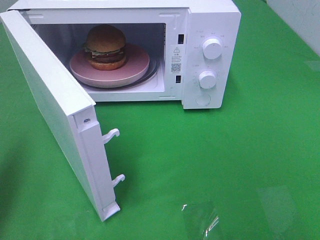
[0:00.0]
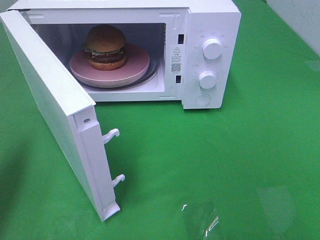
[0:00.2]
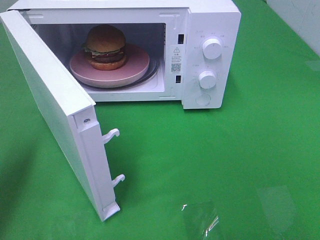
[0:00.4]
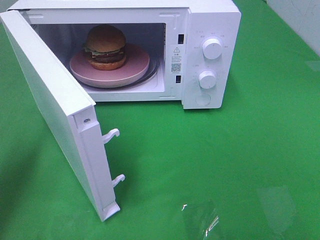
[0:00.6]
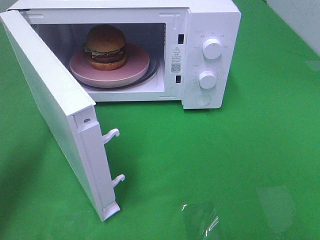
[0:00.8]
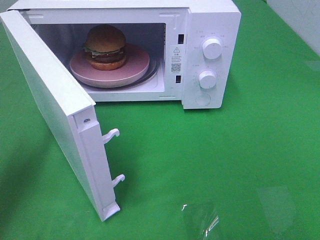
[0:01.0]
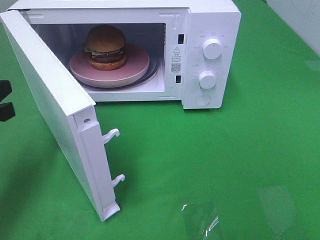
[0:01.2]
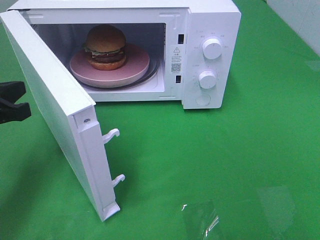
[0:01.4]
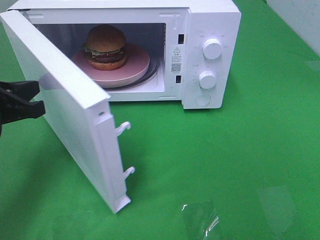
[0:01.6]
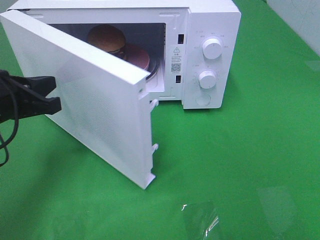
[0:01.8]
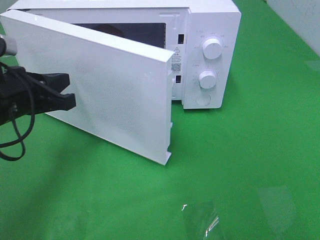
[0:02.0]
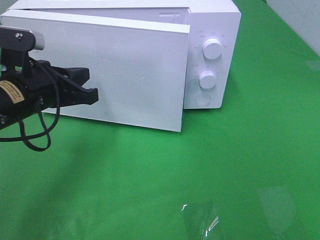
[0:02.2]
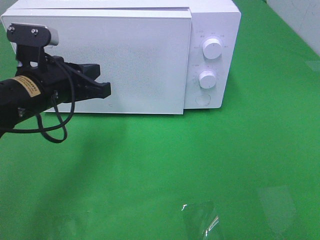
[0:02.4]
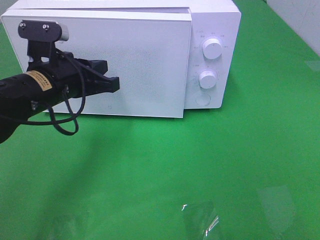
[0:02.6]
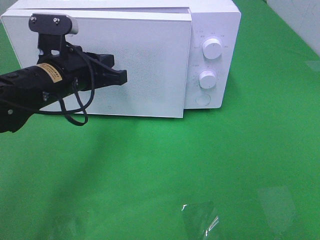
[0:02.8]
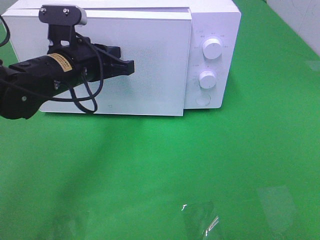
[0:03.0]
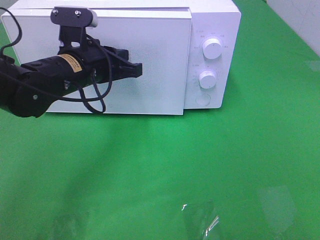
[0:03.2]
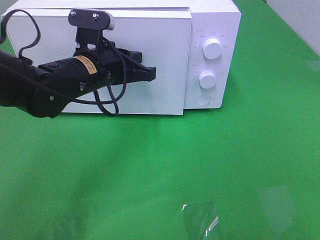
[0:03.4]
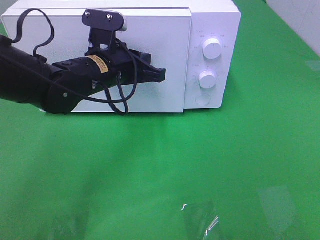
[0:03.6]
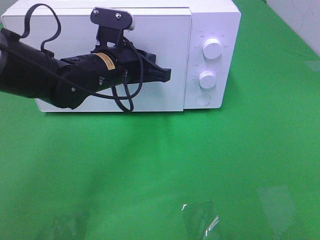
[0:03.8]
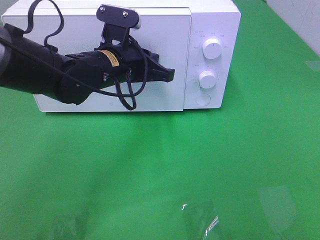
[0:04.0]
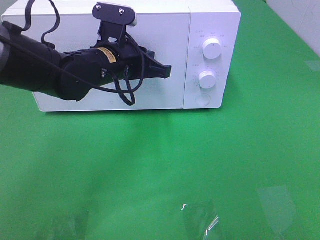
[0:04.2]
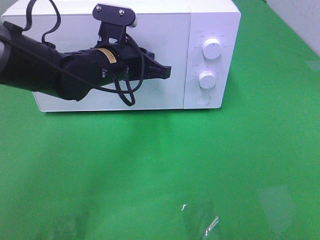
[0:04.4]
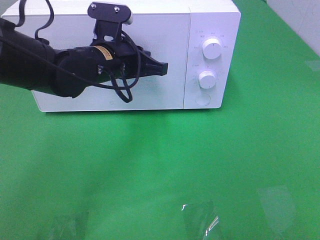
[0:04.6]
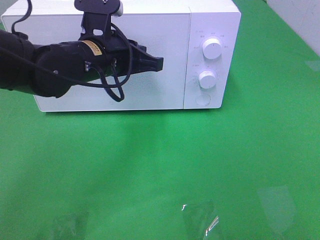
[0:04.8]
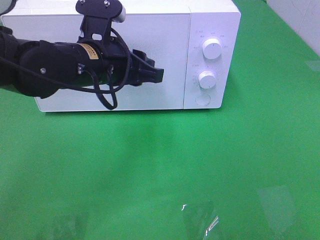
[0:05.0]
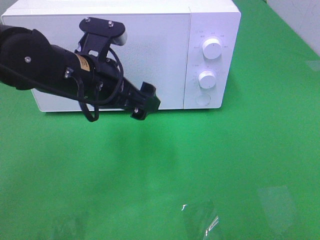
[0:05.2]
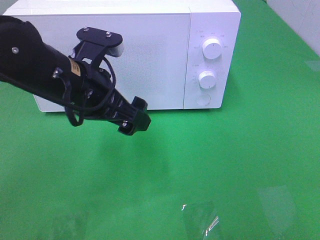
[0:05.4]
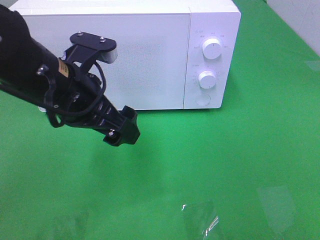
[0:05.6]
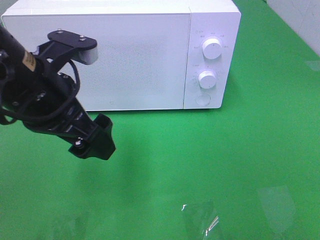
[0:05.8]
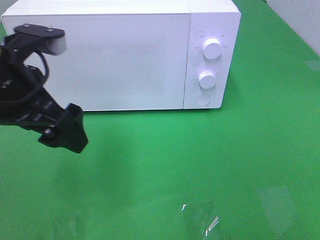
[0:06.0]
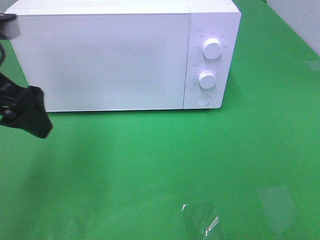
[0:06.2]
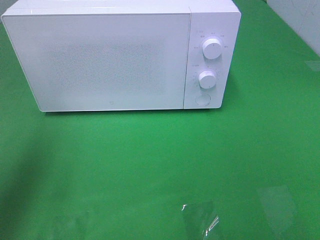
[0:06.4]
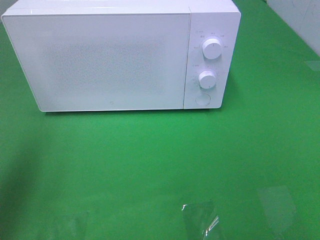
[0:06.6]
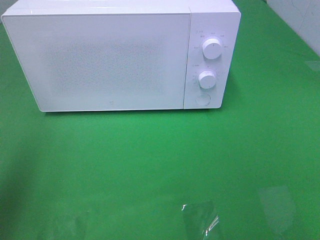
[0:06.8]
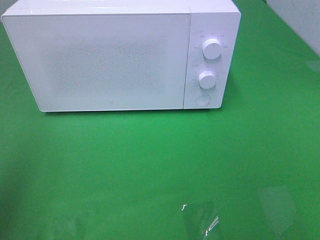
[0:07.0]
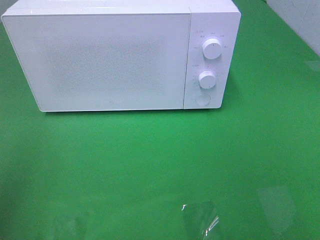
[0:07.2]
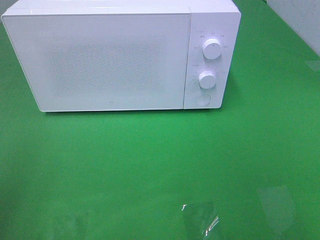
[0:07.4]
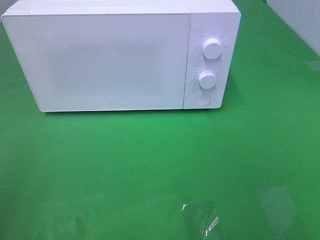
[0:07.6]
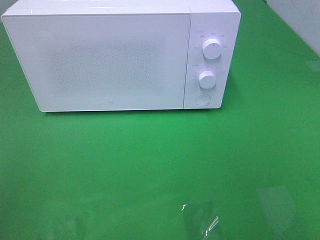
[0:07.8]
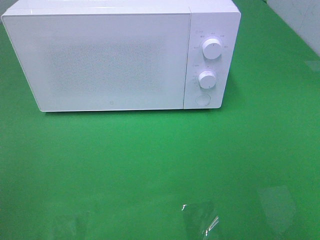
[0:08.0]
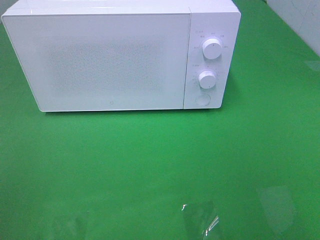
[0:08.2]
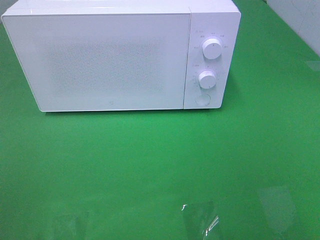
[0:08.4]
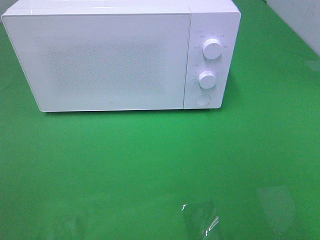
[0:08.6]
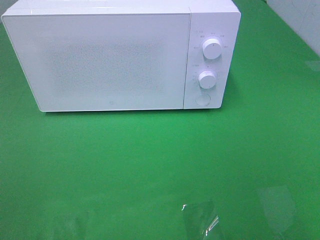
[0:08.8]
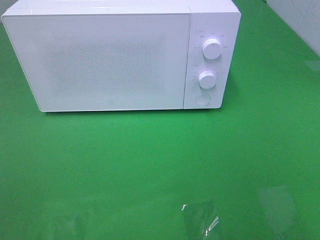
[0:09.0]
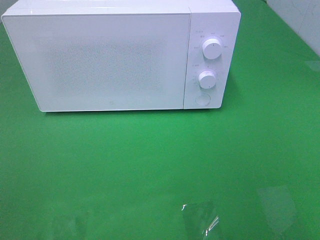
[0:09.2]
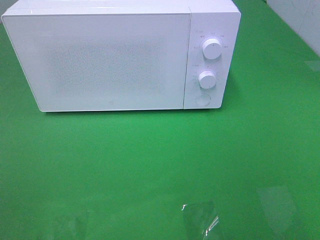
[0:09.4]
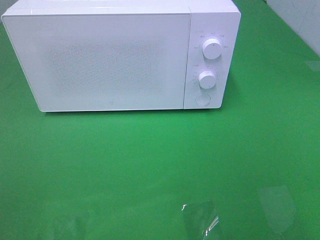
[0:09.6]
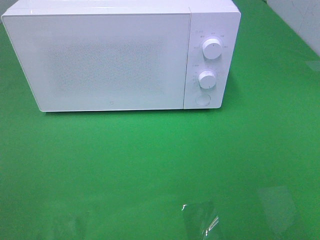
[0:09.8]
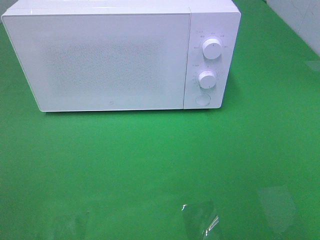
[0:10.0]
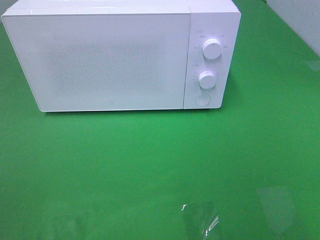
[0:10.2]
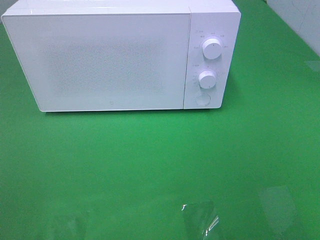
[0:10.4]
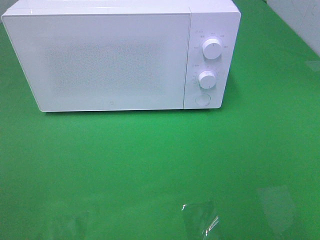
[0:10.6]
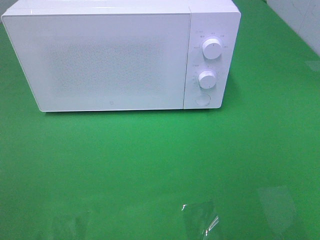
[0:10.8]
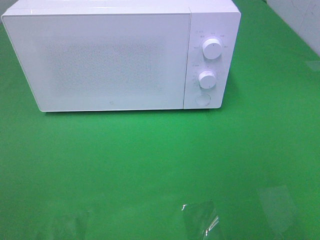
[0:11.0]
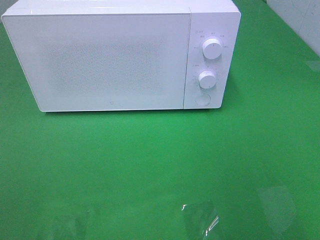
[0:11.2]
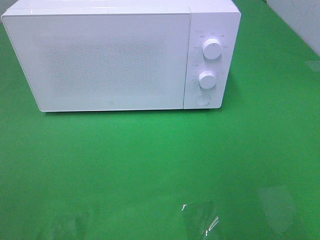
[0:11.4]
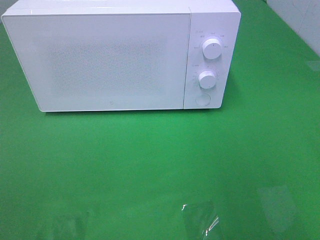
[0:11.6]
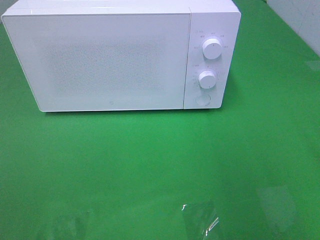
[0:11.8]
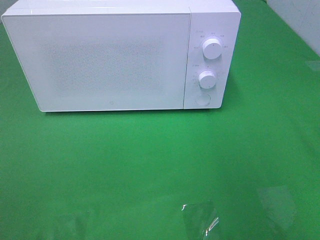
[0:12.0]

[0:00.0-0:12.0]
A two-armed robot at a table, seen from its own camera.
Task of the whole recording: Heat the burger.
Step, 0:00.0 to 0:04.8: Left hand: close the microwave door.
0:00.0 to 0:01.6: The left gripper is displaced downward, forward and to the right by approximately 15 cm.
0:01.6 to 0:03.0: The left gripper moves to the right and forward, roughly 15 cm.
0:03.0 to 0:04.4: The left gripper is displaced to the right by some 5 cm.
0:04.4 to 0:06.0: The left gripper goes roughly 20 cm backward, to the left and upward, and opens its fingers.
0:06.0 to 0:07.6: The left gripper moves backward and to the left, approximately 20 cm.
0:09.0 to 0:10.4: Both grippers stay put.

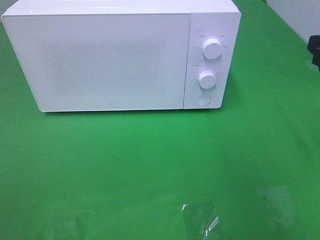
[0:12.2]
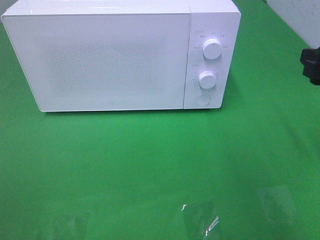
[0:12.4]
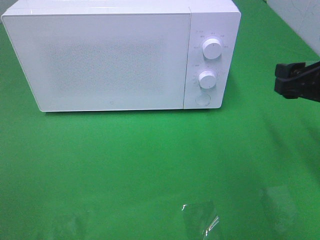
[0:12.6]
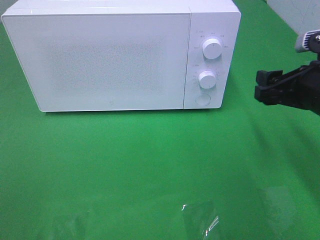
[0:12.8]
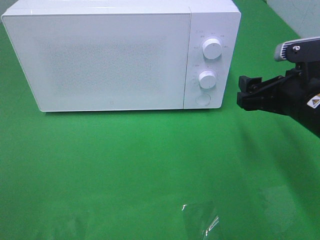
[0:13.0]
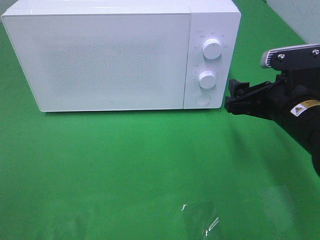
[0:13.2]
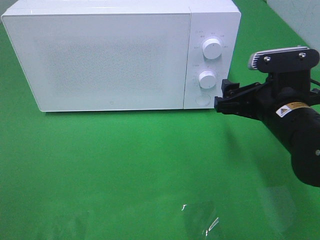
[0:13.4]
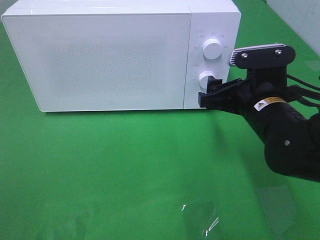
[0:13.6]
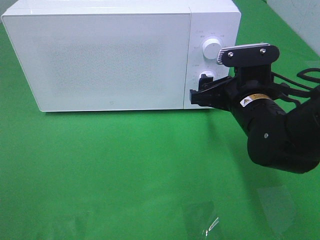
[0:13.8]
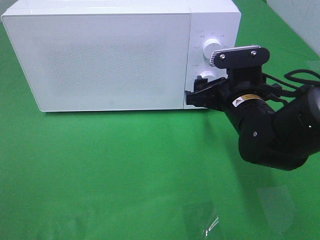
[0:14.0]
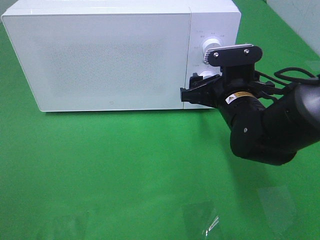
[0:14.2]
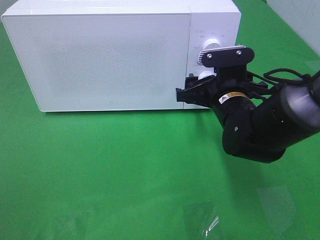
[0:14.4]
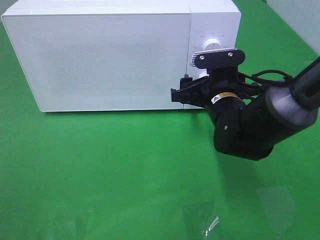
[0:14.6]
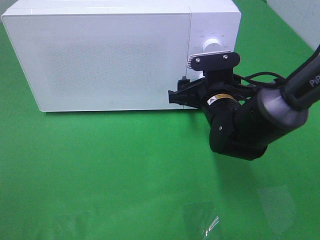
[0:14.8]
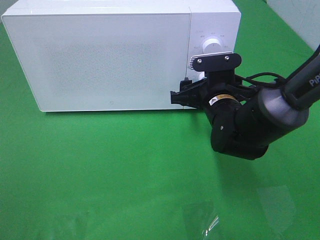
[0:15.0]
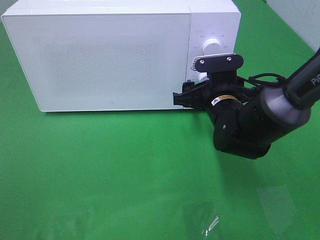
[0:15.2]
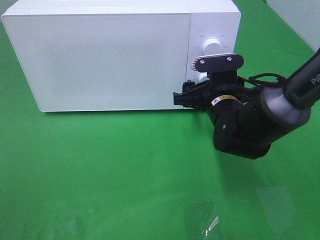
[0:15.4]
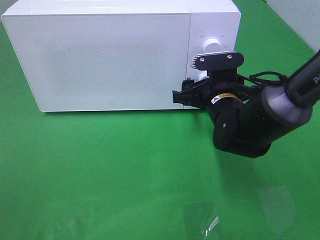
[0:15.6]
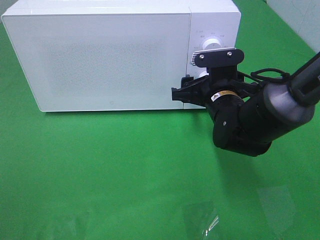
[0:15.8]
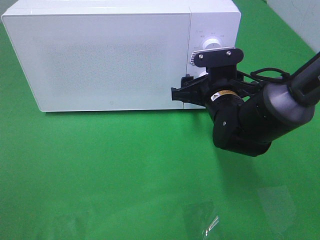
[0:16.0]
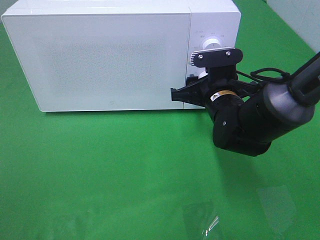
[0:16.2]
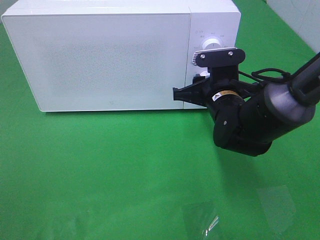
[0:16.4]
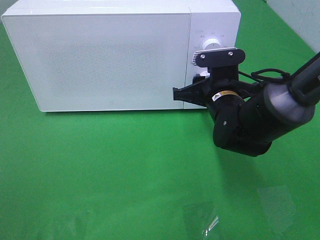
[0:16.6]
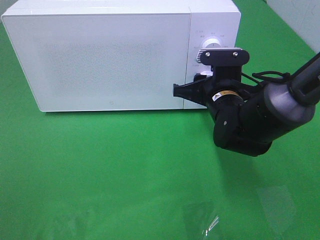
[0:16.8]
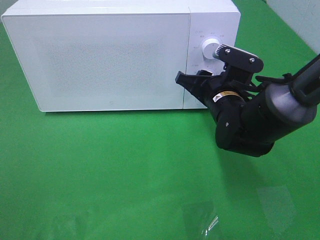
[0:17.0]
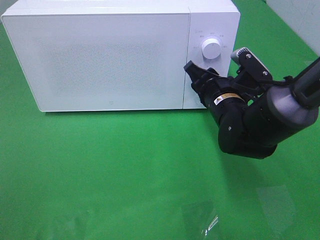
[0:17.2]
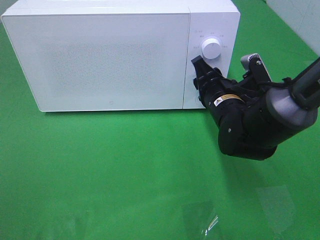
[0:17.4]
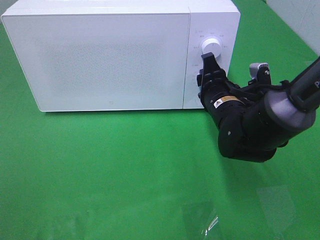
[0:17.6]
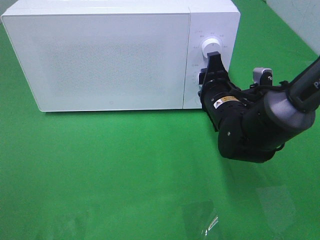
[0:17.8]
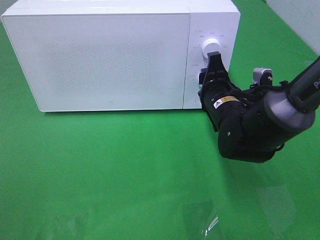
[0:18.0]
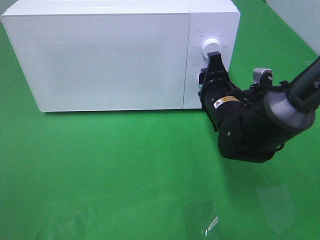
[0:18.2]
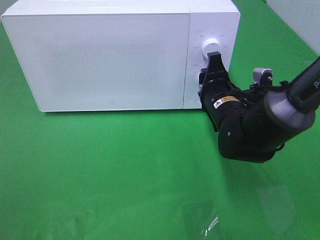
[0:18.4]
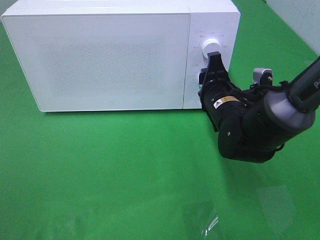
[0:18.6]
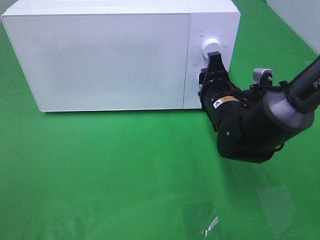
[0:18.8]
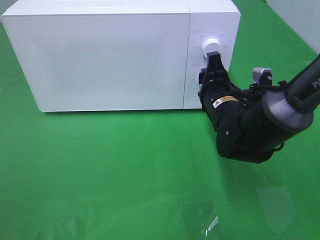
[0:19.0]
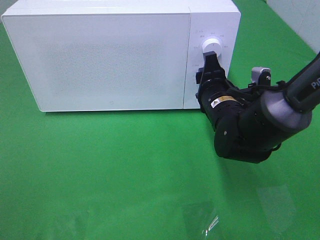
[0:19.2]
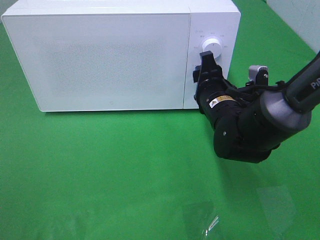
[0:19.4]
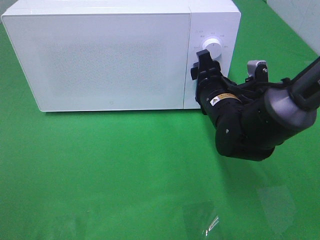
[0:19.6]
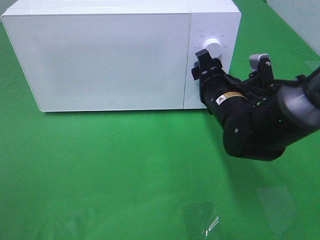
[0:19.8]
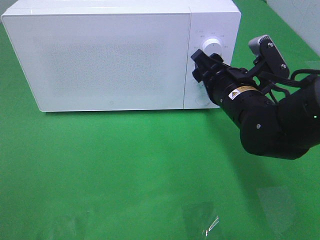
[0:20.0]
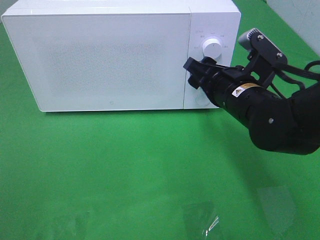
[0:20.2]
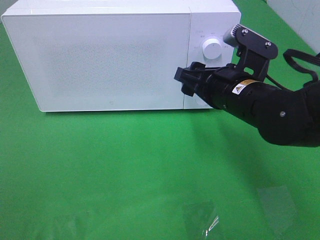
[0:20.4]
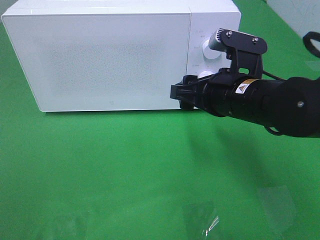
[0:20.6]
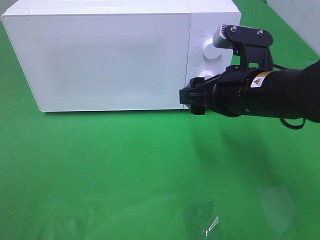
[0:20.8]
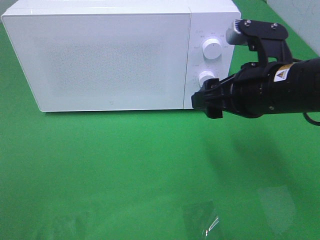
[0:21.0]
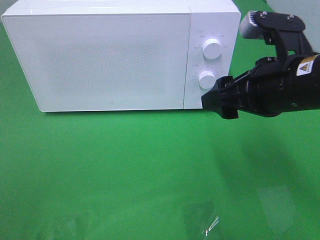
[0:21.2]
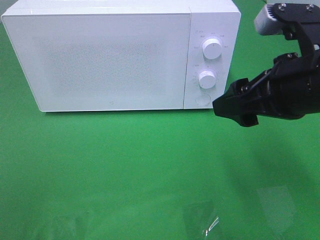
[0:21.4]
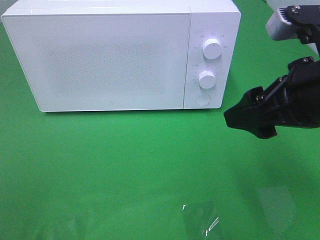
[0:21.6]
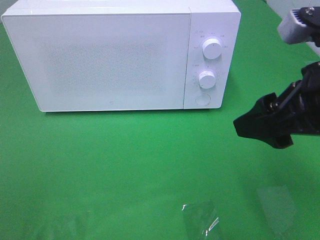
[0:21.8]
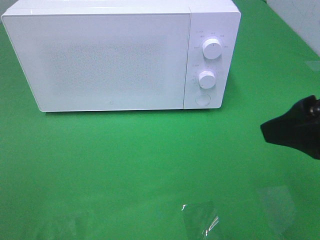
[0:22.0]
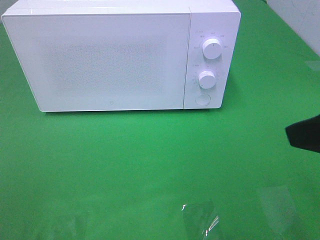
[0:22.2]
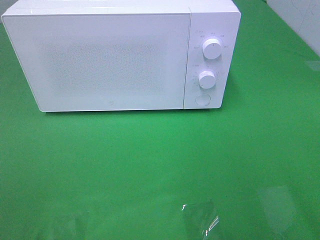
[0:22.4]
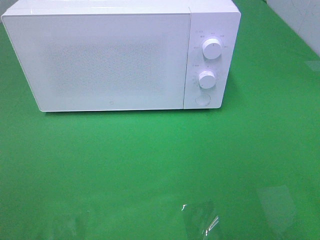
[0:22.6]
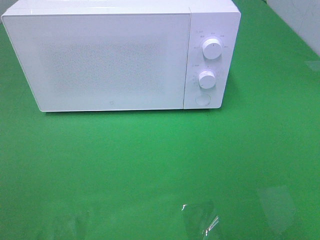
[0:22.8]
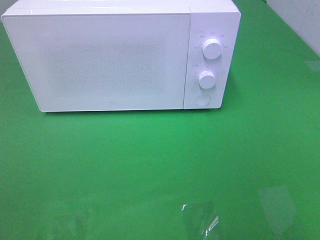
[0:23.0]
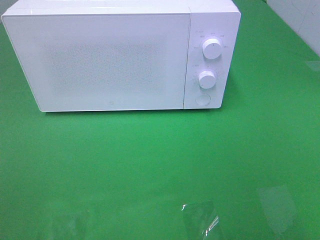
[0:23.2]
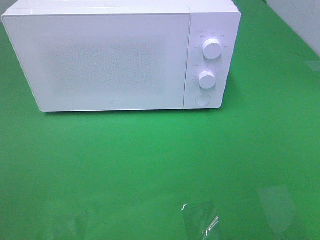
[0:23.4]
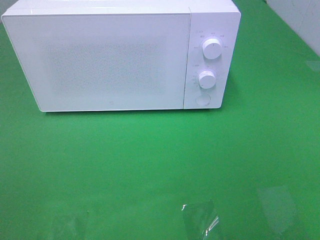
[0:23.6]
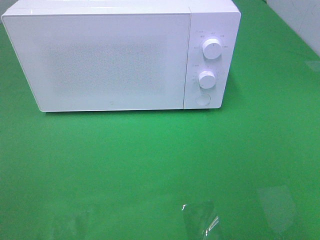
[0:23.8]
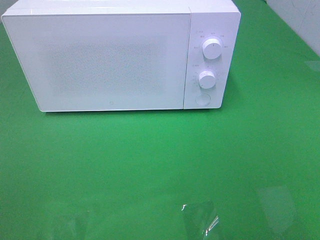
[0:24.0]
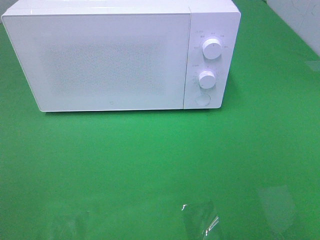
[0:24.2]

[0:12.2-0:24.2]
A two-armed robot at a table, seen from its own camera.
Task of the whole recording: Heat the burger.
Step, 0:12.2 to 0:19.0: Right hand: twist timer button.
0:12.2 to 0:13.8: The right gripper moves to the left, downward and forward, about 20 cm.
0:13.8 to 0:15.2: The right gripper moves approximately 5 cm.
0:15.2 to 0:16.6: The right gripper closes up.
0:18.2 to 0:19.8: The grippers stay close to where they were, moving slightly.
0:19.8 to 0:21.2: The right gripper shifts about 15 cm upward and backward.
0:21.2 to 0:22.6: The right gripper goes some 20 cm backward, to the right and upward.
